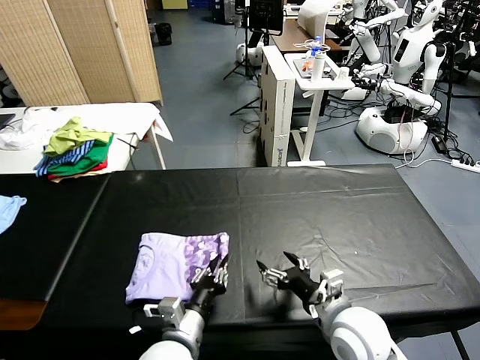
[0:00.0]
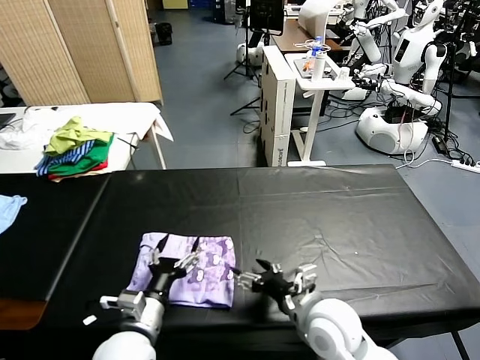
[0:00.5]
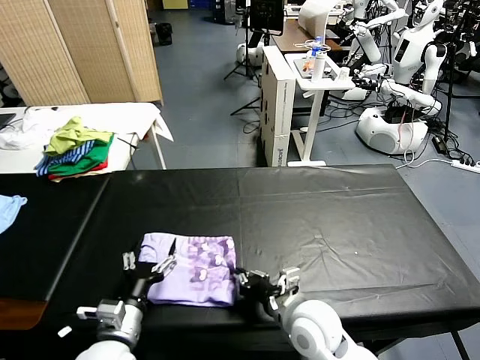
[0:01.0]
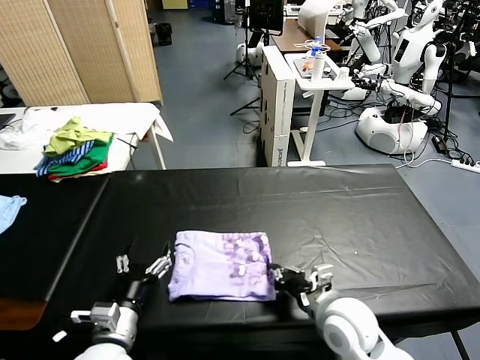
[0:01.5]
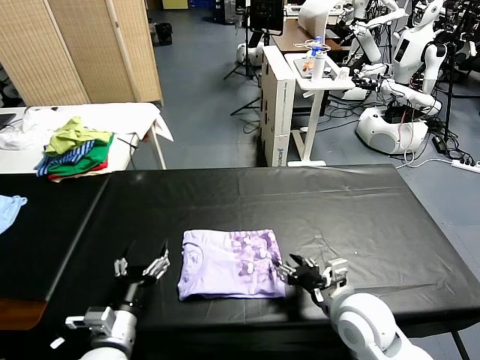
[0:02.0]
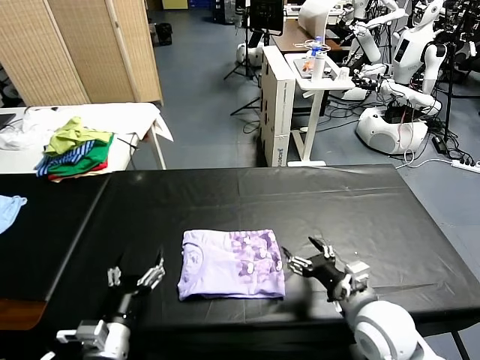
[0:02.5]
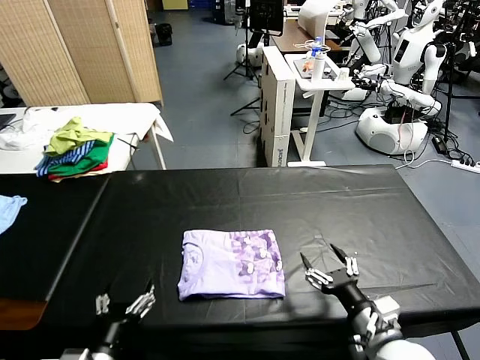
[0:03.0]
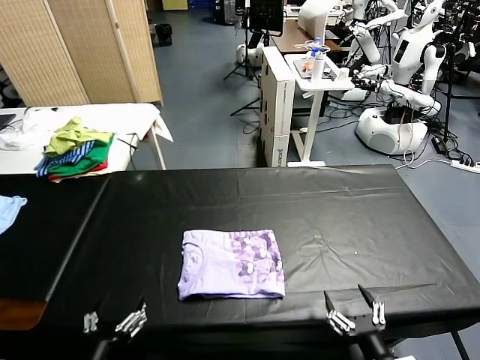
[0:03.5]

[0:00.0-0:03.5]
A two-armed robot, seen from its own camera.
Task of the whole recording: fold and organize the clothes.
Step, 0:00.5 to 0:02.0: Drag the clothes to the center of the table.
0:00.0 to 0:02.0: The left gripper shifts roughly 10 cm to the left, and opens up. Meanwhile the right gripper goes to the left and returns, roughly 5 cm each way, and closes its fingers.
0:02.0 to 0:03.5: The right gripper shifts about 15 cm backward, and opens up. Meanwhile the left gripper is displaced backward by approximately 10 cm.

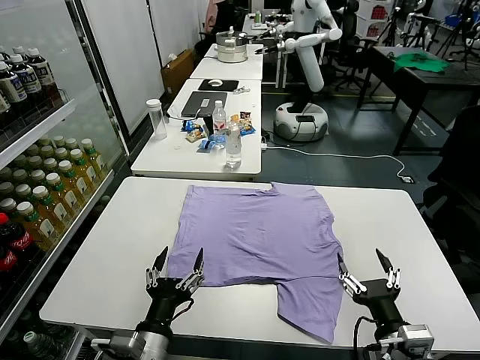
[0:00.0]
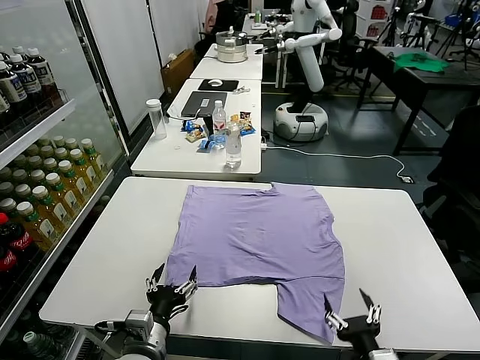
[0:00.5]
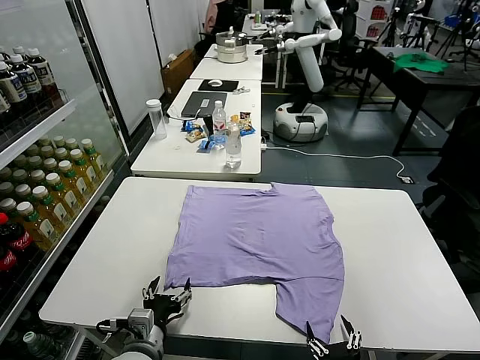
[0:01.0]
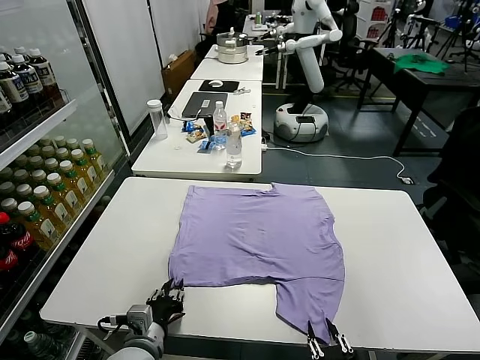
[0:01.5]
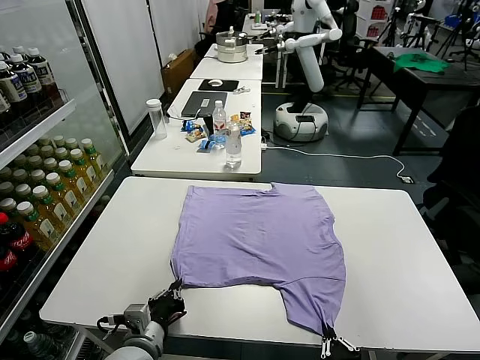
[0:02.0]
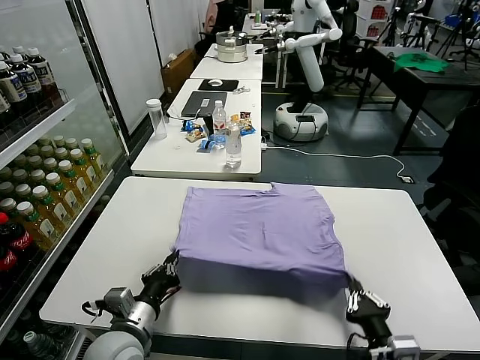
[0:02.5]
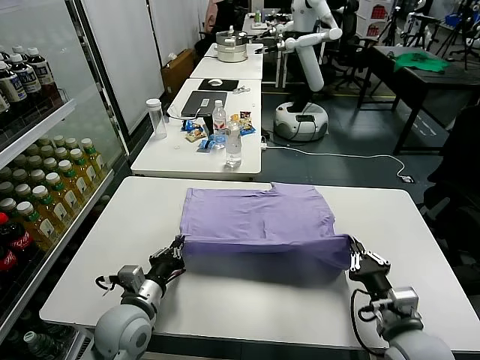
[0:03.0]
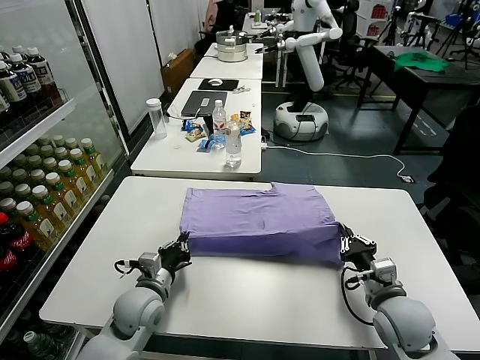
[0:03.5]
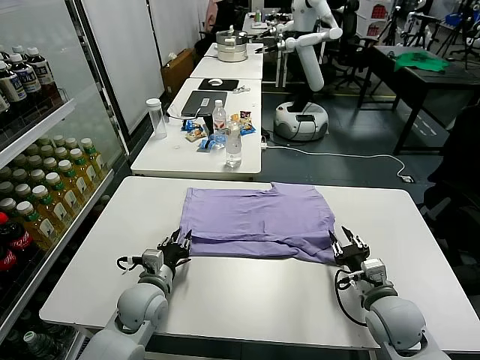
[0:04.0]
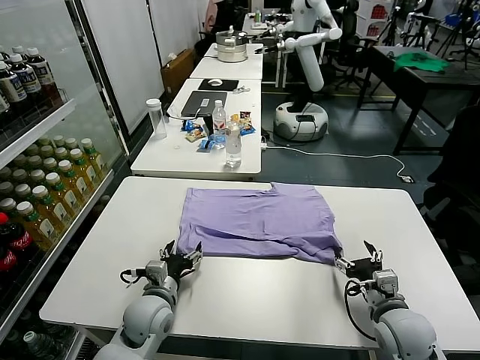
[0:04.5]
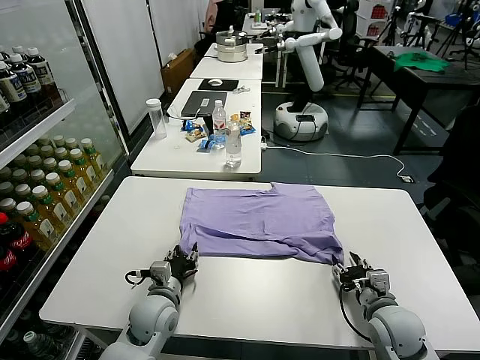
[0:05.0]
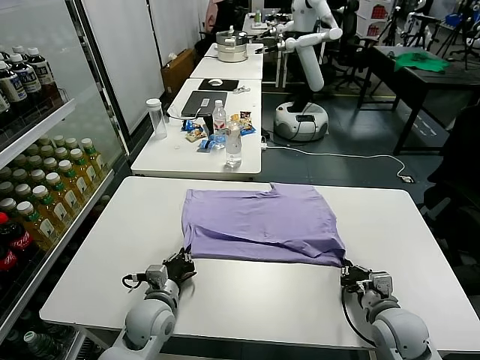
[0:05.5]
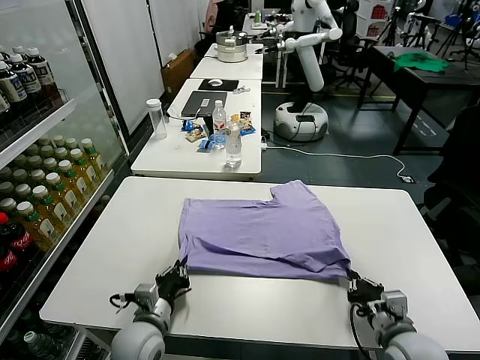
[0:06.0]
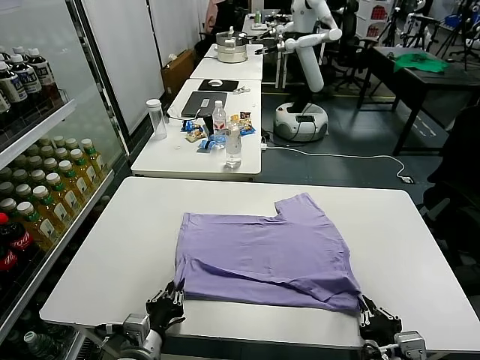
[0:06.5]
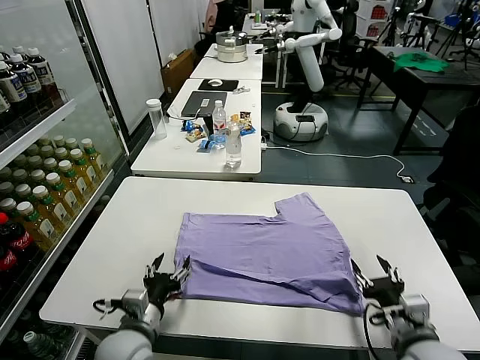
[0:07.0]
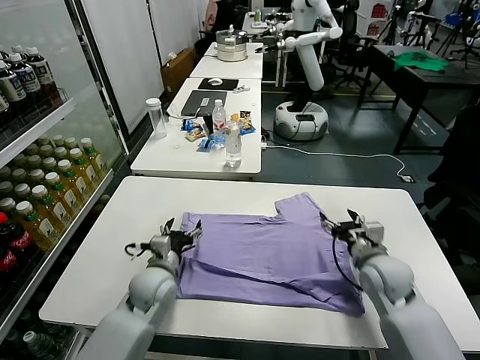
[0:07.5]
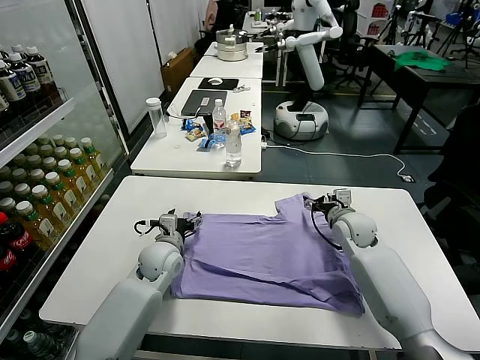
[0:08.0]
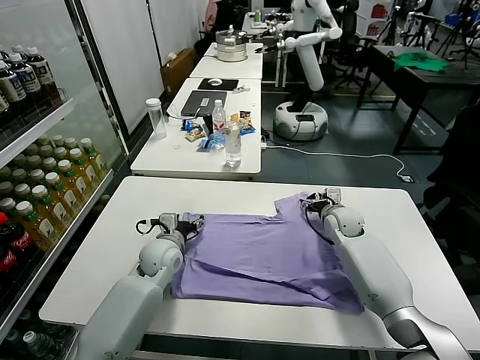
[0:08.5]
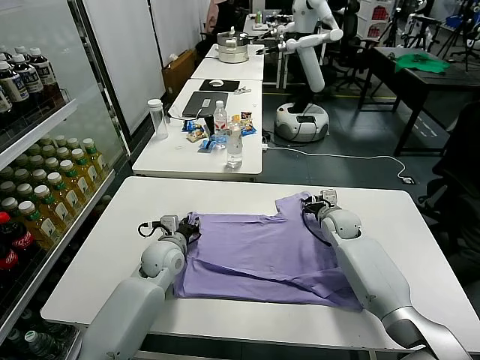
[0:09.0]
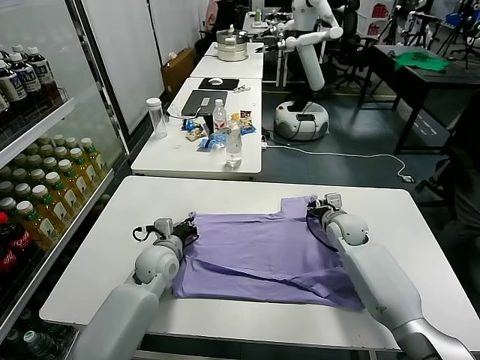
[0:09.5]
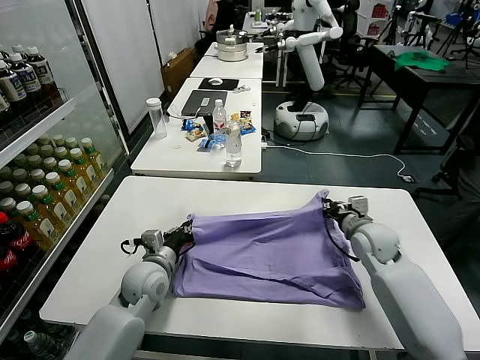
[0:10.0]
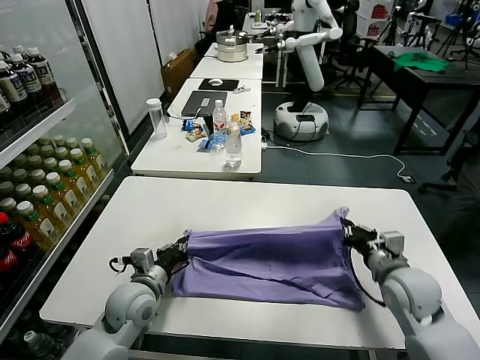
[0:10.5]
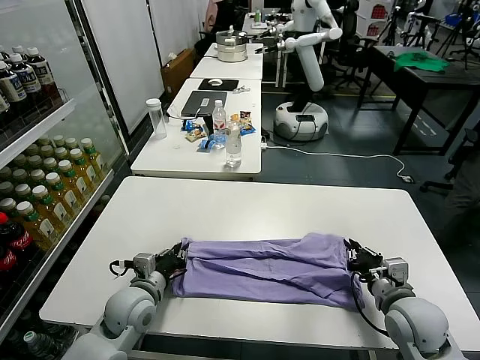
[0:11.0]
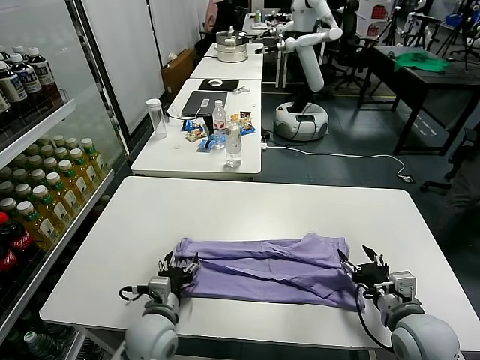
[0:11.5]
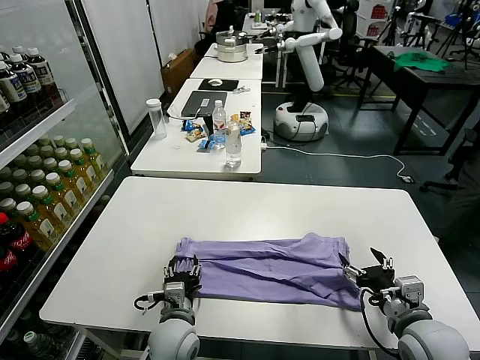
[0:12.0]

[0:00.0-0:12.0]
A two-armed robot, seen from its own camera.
Task of the whole recording: fold and organize the clothes.
Step, 0:00.0 to 0:01.5: use both grippers simultaneously to clamp the lower edge of the clothing fabric.
Step, 0:02.0 to 0:04.0: use both grippers to drag the lower edge of the fabric forward and fold it over the upper edge.
Step, 0:04.5 to 0:07.0: Drag the clothes downward with both gripper.
Step, 0:07.5 to 0:09.0: use both grippers simultaneously to clamp the upper edge of the clothing fabric.
Step, 0:09.5 to 0:11.0: use both grippers to drag the upper edge of the fabric backward and fold it over the lower edge.
0:02.0 to 0:04.0: Both grippers move forward, about 15 cm. The right gripper opens up. Meanwhile the left gripper opens.
0:04.0 to 0:06.0: The grippers both shift backward by roughly 10 cm. The right gripper closes its fingers, while the left gripper closes up.
0:06.0 to 0:08.0: The right gripper heads forward, covering about 30 cm, and opens. Meanwhile the left gripper heads forward, covering some 20 cm, and opens its fingers.
0:08.0 to 0:10.0: The two grippers go approximately 10 cm backward. The right gripper closes its fingers, while the left gripper closes up.
0:10.0 to 0:12.0: The right gripper moves backward, roughly 20 cm, and opens up. The left gripper heads backward, to the right and downward, covering about 15 cm, and opens.

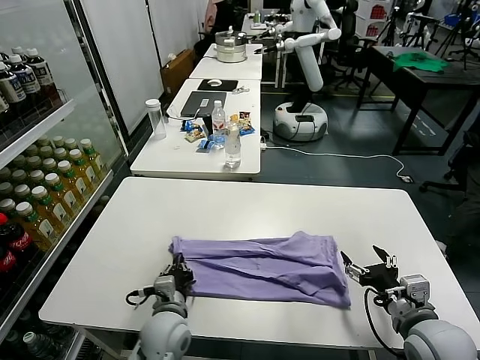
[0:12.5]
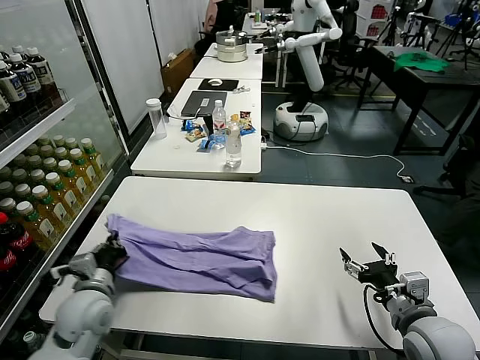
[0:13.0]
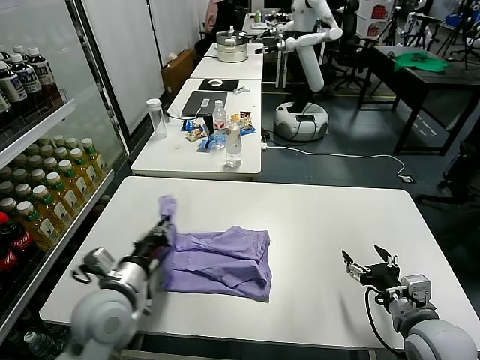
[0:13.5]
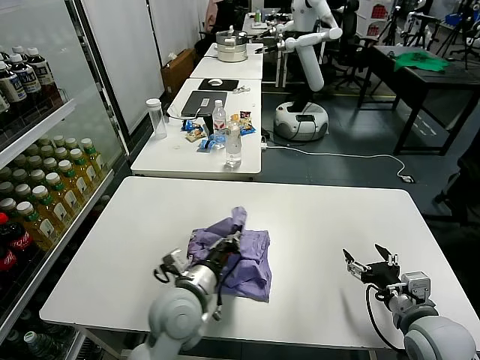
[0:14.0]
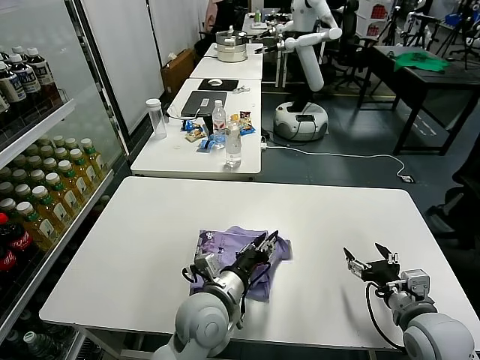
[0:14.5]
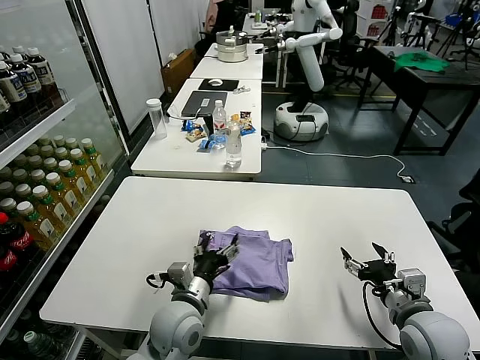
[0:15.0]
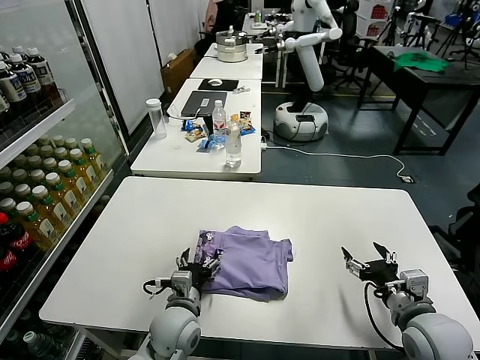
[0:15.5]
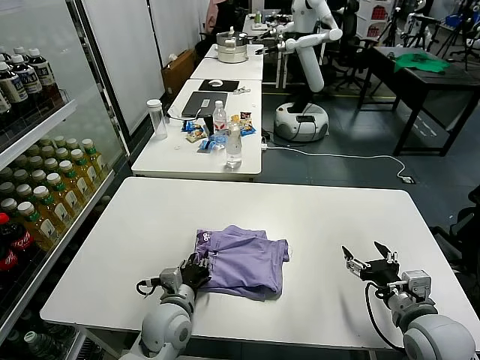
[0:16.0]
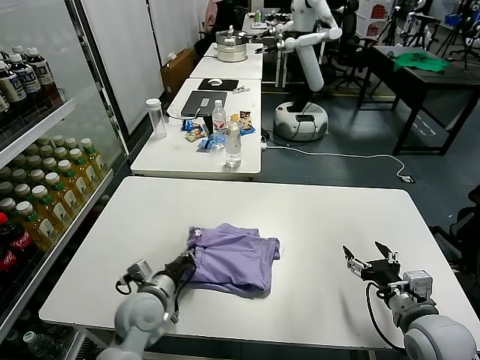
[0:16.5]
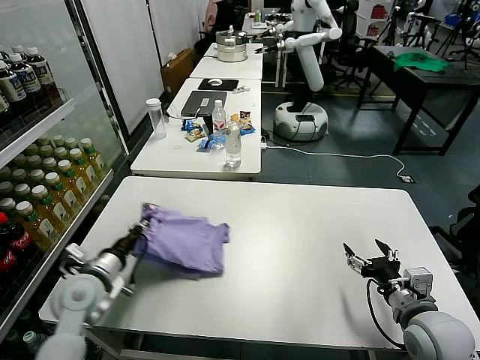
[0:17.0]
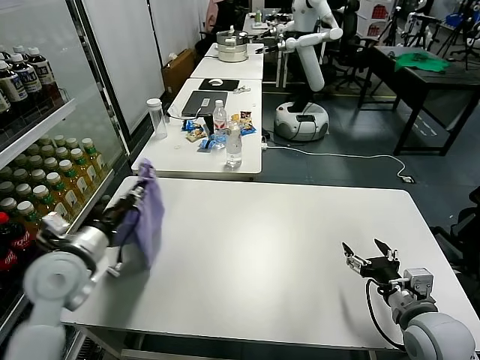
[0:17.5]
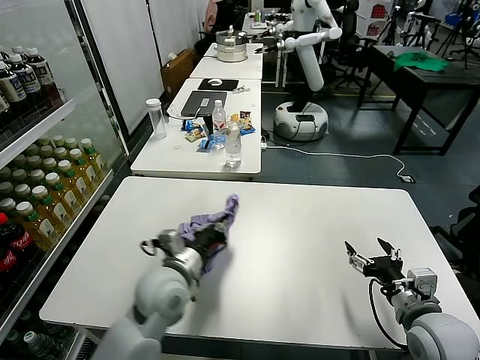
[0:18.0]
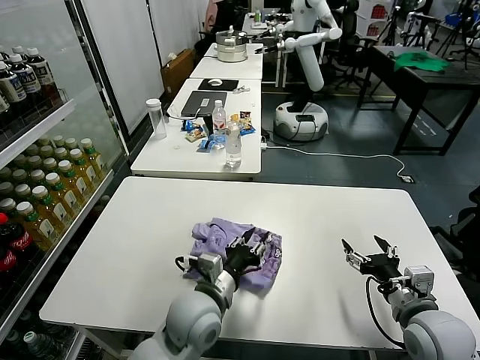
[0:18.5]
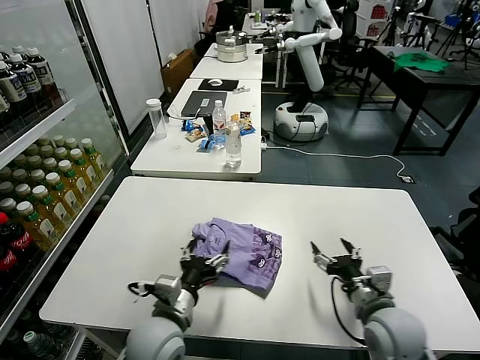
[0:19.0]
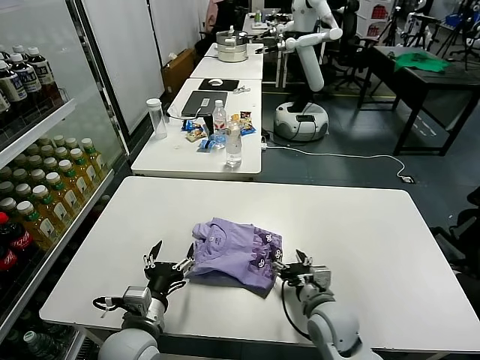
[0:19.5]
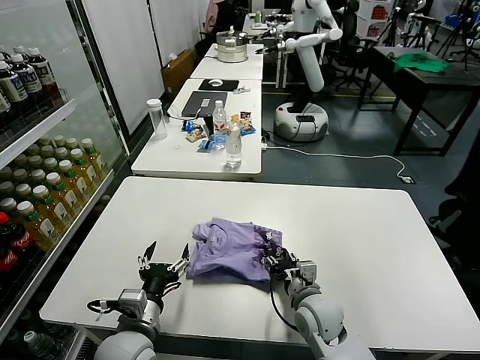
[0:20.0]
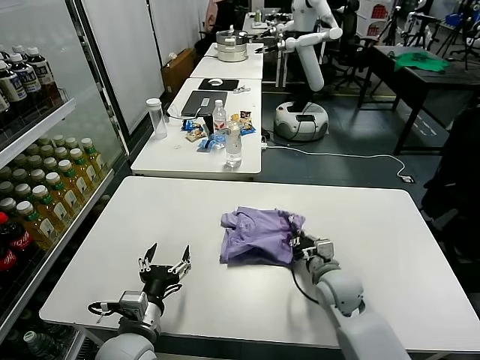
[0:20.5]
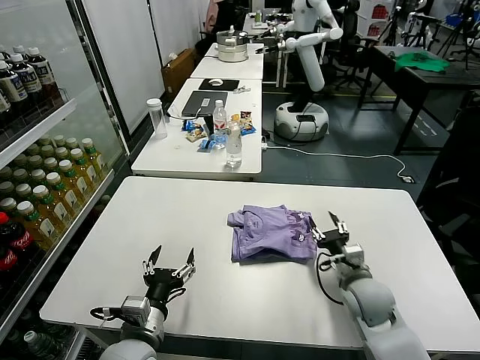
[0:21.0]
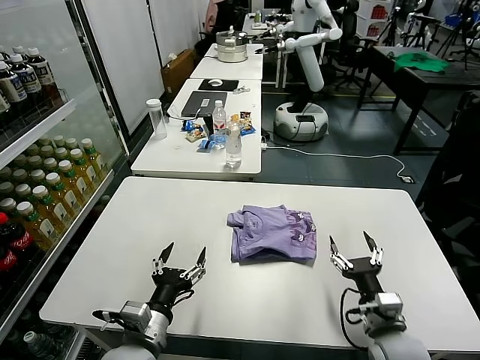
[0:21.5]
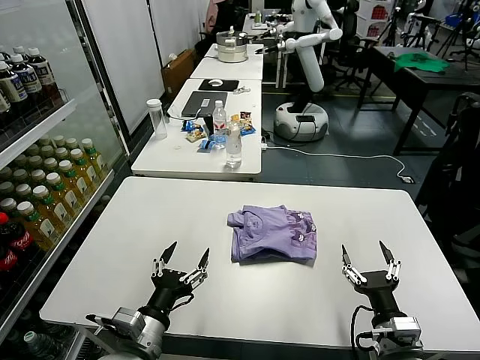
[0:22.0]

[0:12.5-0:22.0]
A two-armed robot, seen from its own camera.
Task of the whole recording: fold and organize the clothes.
Step, 0:13.0 to 0:14.5: use the left gripper to drag the left edge of the fabric to the left and folds it over the right edge.
Step, 0:15.0 to 0:18.5: Flip the folded clothes over with left gripper.
Step, 0:19.0 to 0:21.0: Drag the clothes to the center of the table.
0:12.5 to 0:14.5: The left gripper moves to the right and upward, roughly 15 cm, and opens.
0:14.5 to 0:16.5: The left gripper is displaced to the left and downward by some 15 cm, and closes up.
0:16.5 to 0:18.0: The left gripper travels upward by some 10 cm, and moves approximately 10 cm to the left and comes back.
0:18.0 to 0:20.0: The right gripper heads to the left, downward and forward, covering roughly 20 cm, and closes its fingers; the left gripper heads backward, covering about 10 cm, and opens.
0:20.0 to 0:22.0: The right gripper is displaced backward and to the right by about 20 cm, and opens up.
